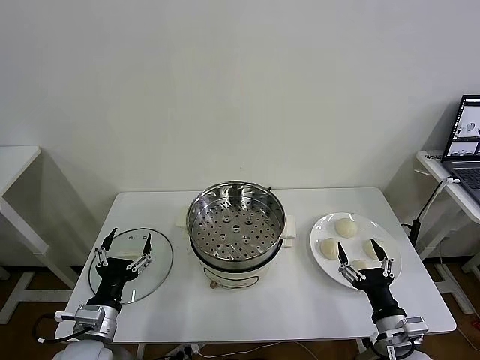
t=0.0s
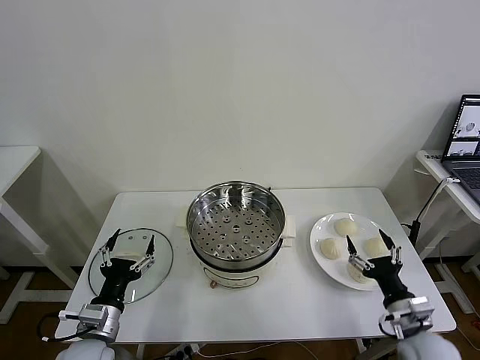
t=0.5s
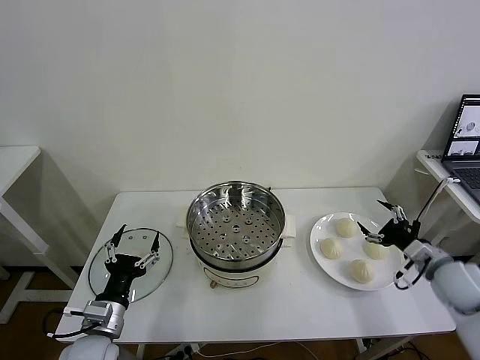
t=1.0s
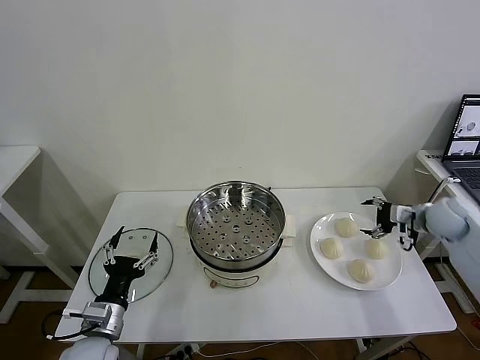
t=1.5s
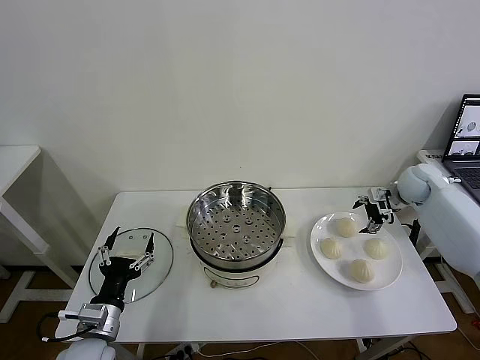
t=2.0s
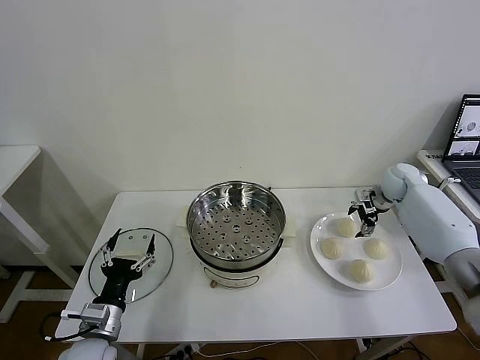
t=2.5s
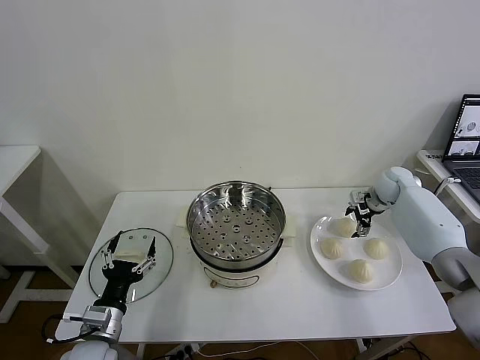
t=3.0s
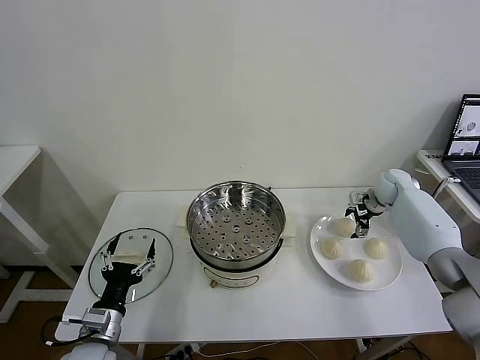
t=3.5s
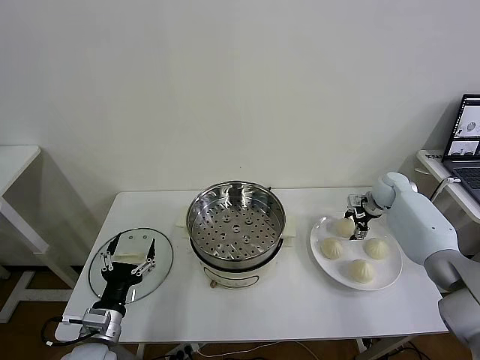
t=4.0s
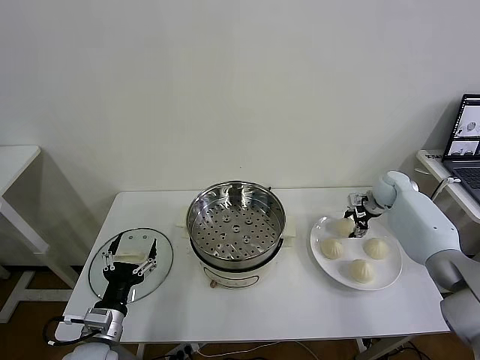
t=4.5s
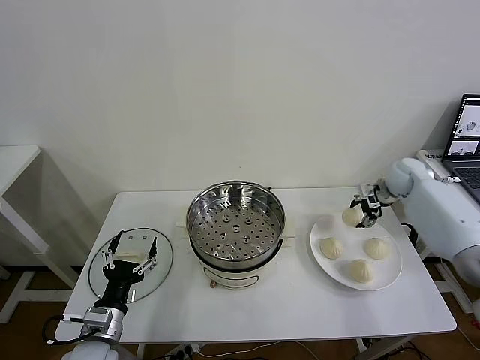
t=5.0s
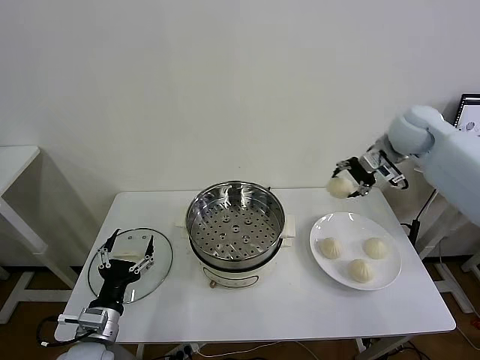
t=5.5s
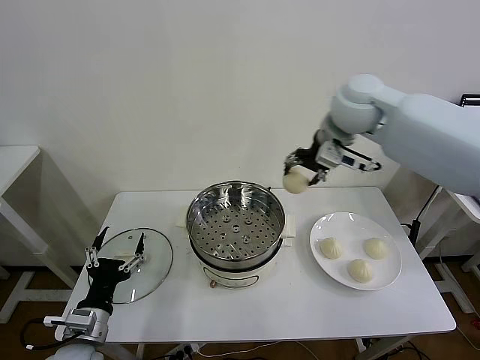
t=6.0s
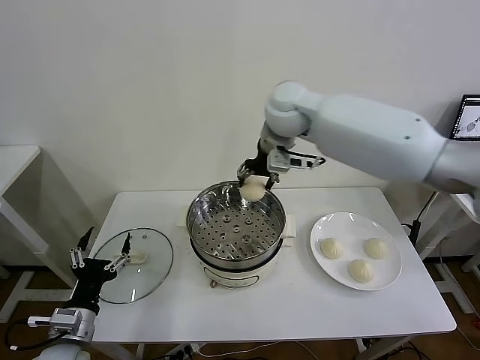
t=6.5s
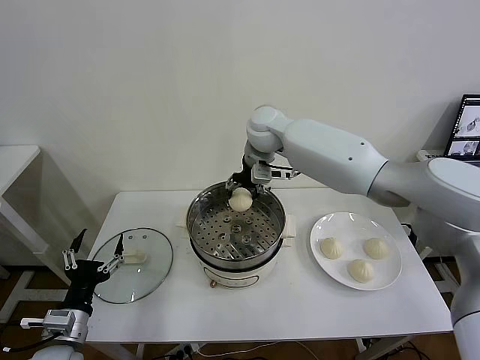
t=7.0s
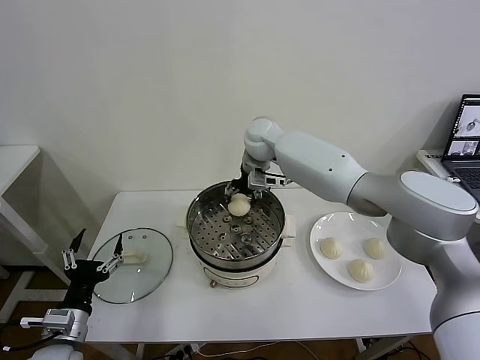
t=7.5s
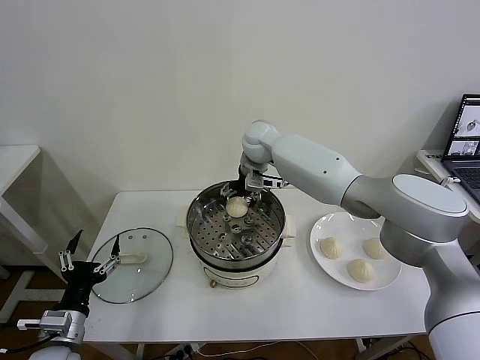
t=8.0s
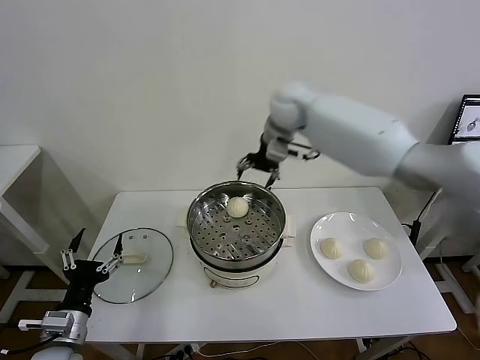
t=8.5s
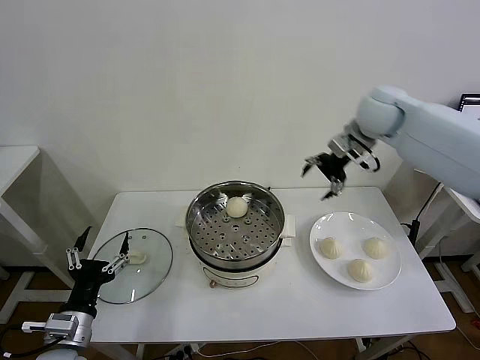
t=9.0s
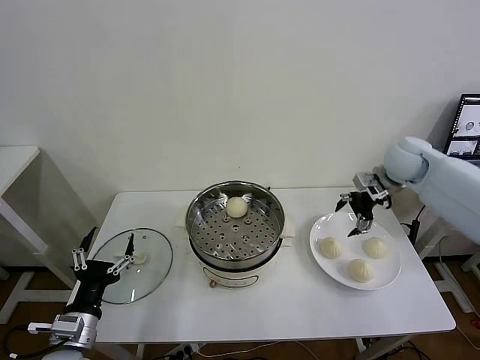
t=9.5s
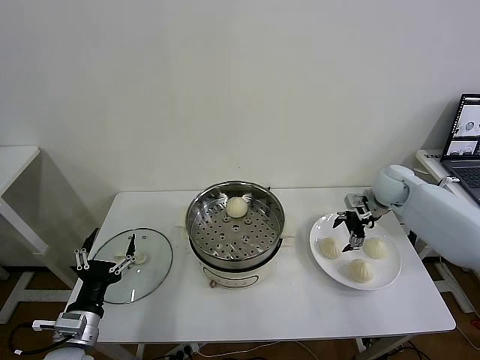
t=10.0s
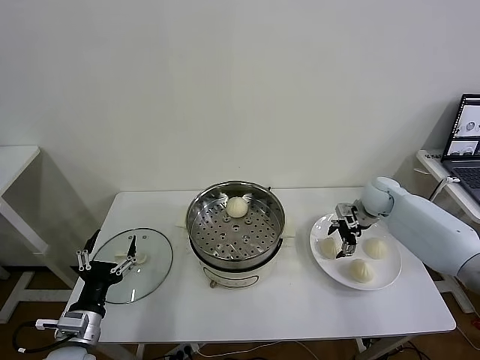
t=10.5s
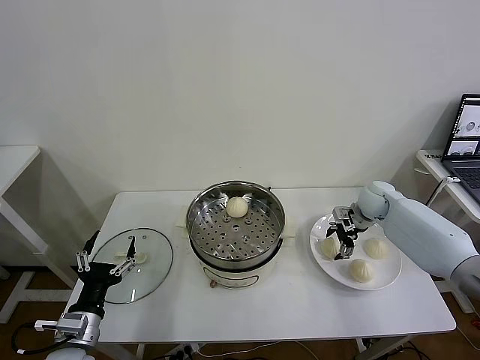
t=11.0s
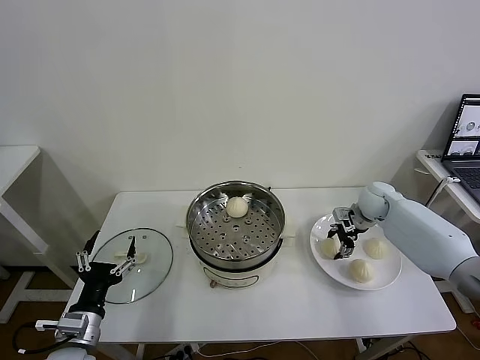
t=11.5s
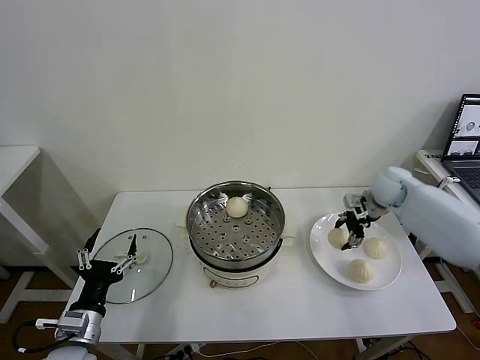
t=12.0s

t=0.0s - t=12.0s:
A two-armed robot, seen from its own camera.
Task of the whole recording: take steamed baozi put them in steamer then cover it.
Step, t=0.0s - t=4.0s: Grasp the baozi in the plate with right gripper.
Step, t=4.5s - t=7.5s: Place the baozi on the steamer with right gripper.
Step, t=8.5s - t=11.0s: Grasp the baozi in the plate with right gripper.
t=2.0s - t=4.0s: The right gripper heads downward, covering some 5 cm, and closes up.
t=4.0s - t=6.0s: The right gripper is displaced upward and to the left by roughly 40 cm.
t=6.0s - t=8.0s: The right gripper shifts roughly 20 cm downward, to the left and forward, and opens.
t=8.0s - t=10.0s: The right gripper travels to the right by about 30 cm.
t=10.0s - t=12.0s: The right gripper closes its fingers.

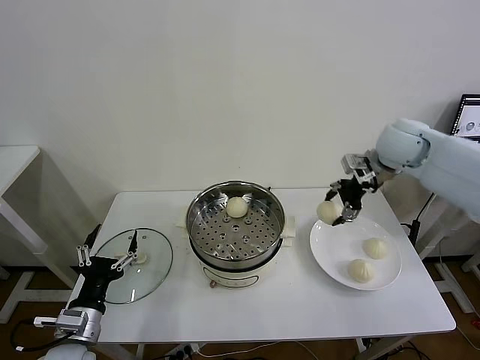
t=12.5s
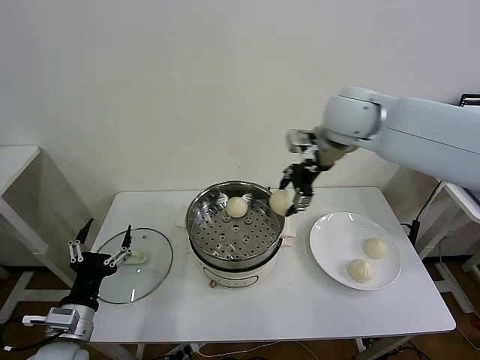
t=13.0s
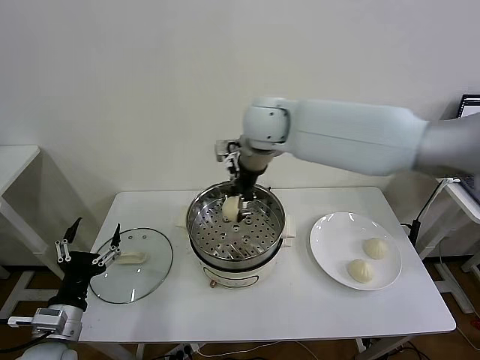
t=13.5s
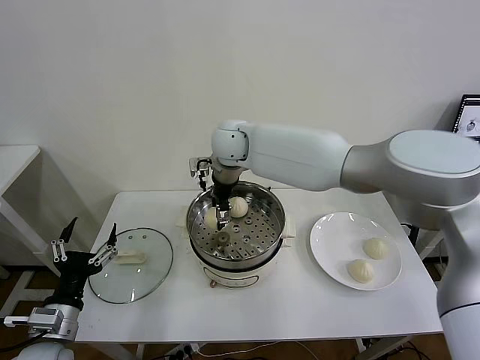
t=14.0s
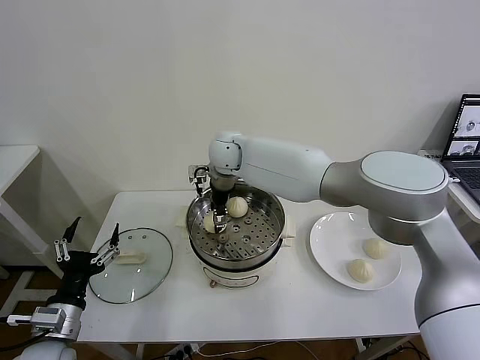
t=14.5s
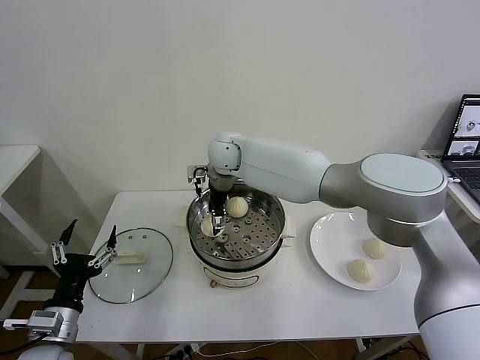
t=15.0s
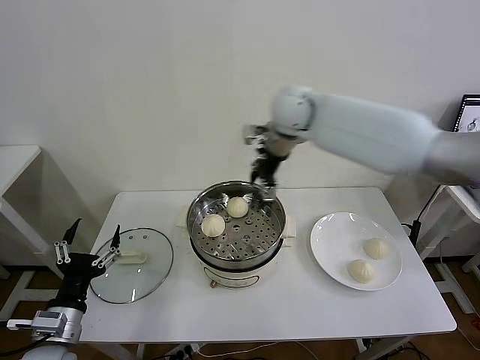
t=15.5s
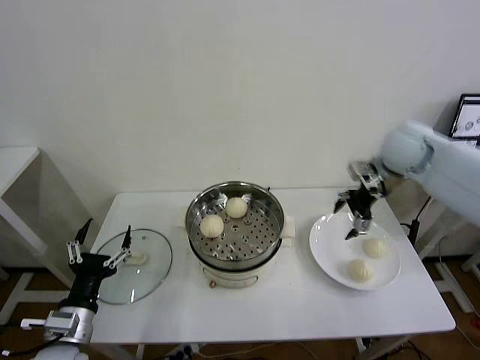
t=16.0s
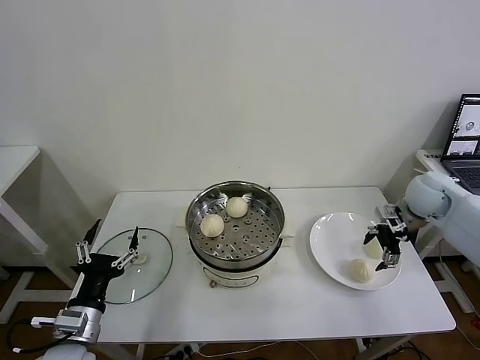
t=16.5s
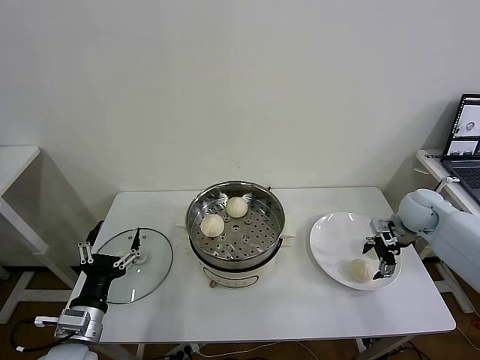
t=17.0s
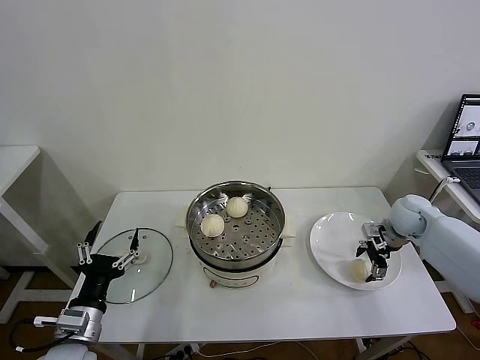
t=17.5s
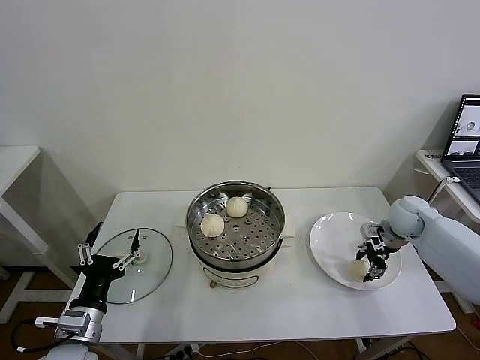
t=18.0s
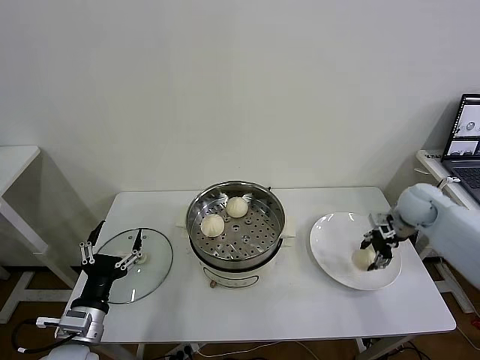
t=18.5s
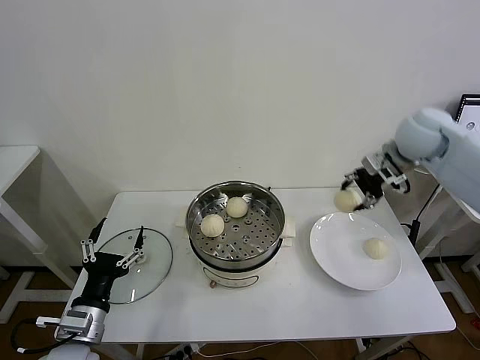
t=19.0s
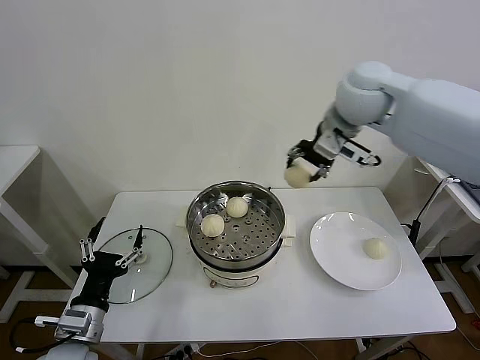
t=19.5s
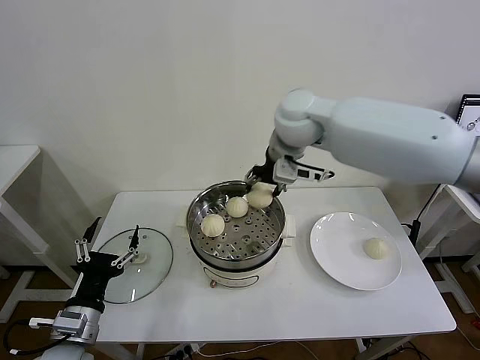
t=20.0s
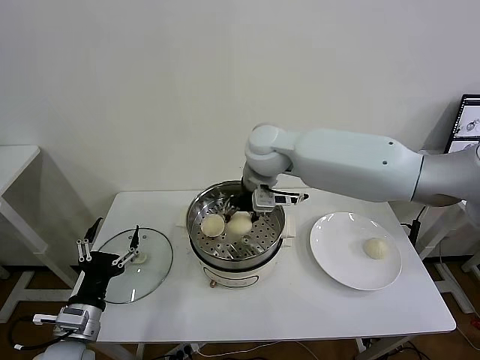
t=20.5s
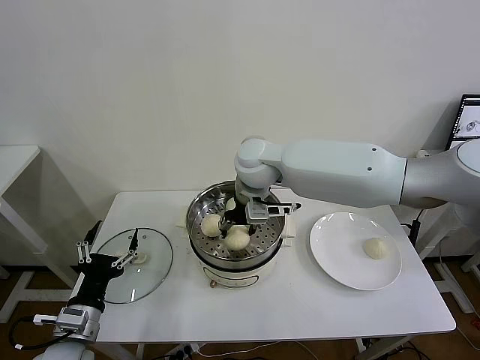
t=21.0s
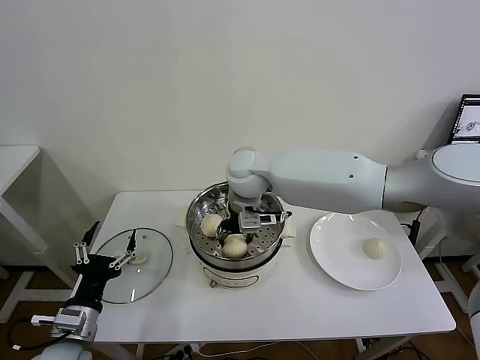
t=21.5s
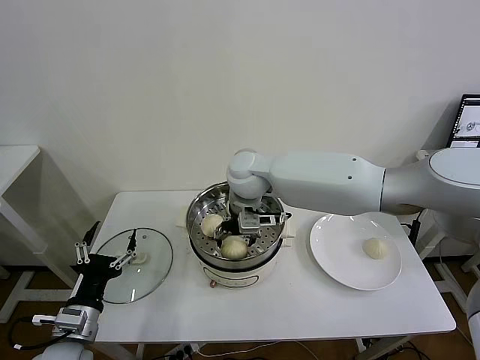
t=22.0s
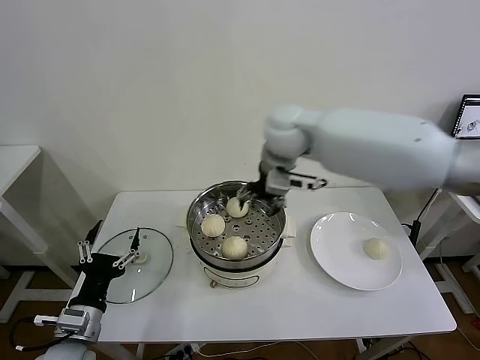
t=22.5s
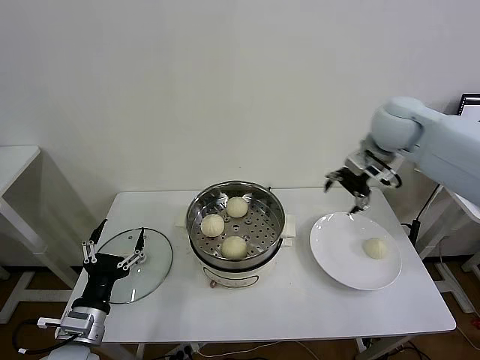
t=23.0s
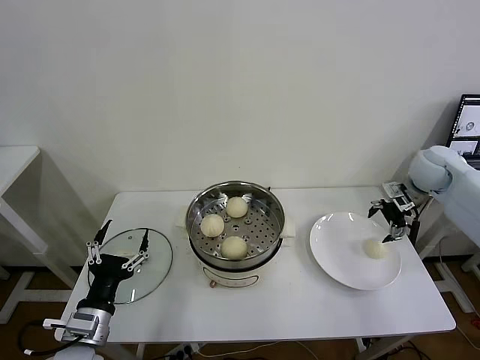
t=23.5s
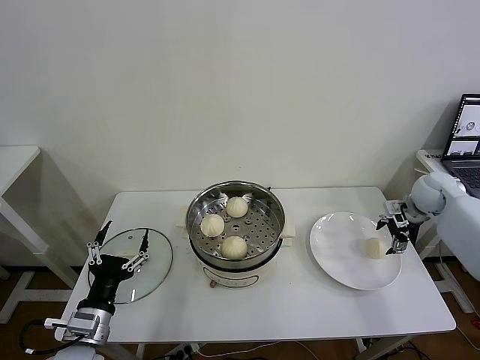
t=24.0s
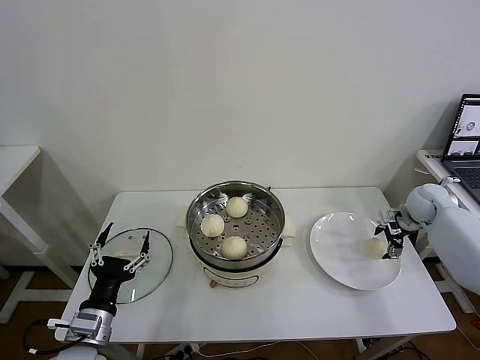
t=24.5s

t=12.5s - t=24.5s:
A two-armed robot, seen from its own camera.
Task of the whole recording: take steamed baozi put them in steamer then cover it.
Step, t=12.5s - t=15.0s: Place the baozi on the steamer with right gripper.
Step, t=15.5s - t=17.5s: Grasp the baozi in the plate with right gripper.
Step, t=18.0s - t=22.0s: Place the baozi on the steamer with right gripper.
t=12.5s - t=14.5s: The right gripper is displaced to the left by approximately 35 cm.
t=14.5s - t=16.5s: The right gripper heads to the right, covering approximately 50 cm, and opens up.
t=16.5s - t=18.5s: The right gripper travels downward and back again, about 10 cm each way, and closes.
t=18.5s - t=20.5s: The right gripper travels to the left by approximately 40 cm.
t=20.5s - t=22.5s: The right gripper is displaced to the right by approximately 5 cm, and opens.
t=22.5s - t=24.5s: The right gripper heads to the right and downward, covering about 40 cm.

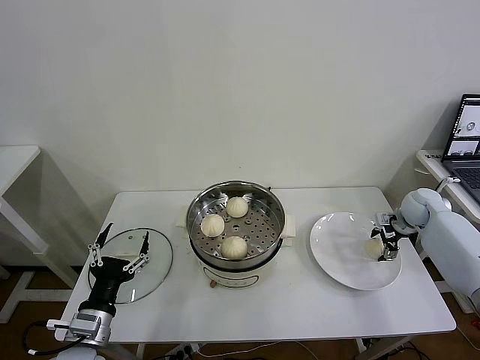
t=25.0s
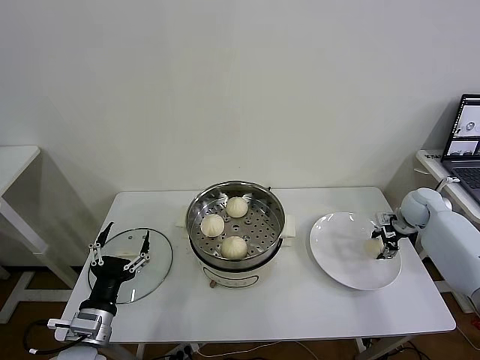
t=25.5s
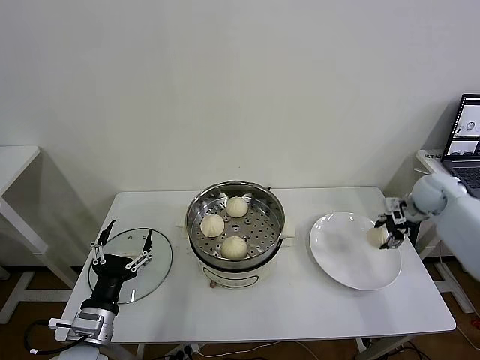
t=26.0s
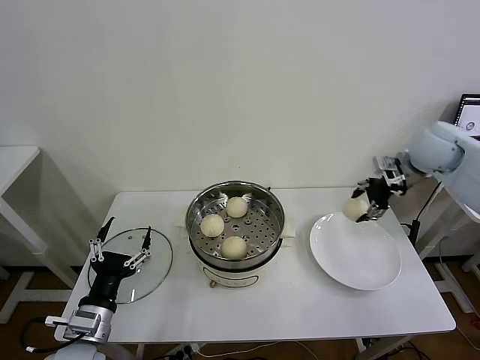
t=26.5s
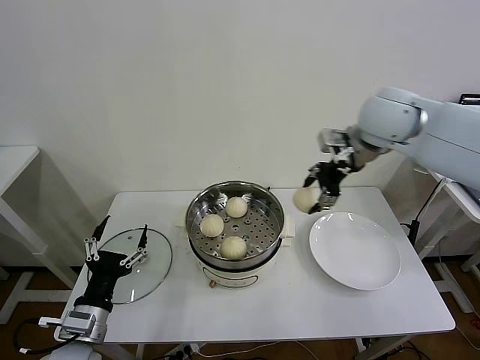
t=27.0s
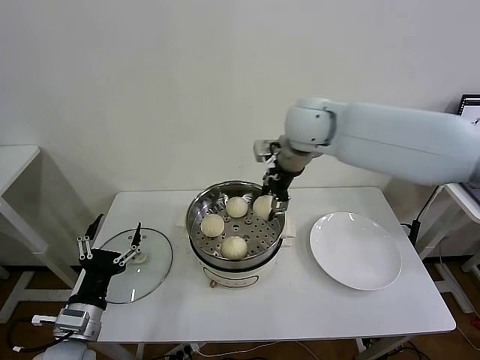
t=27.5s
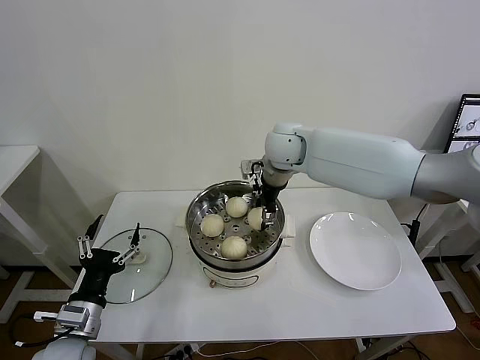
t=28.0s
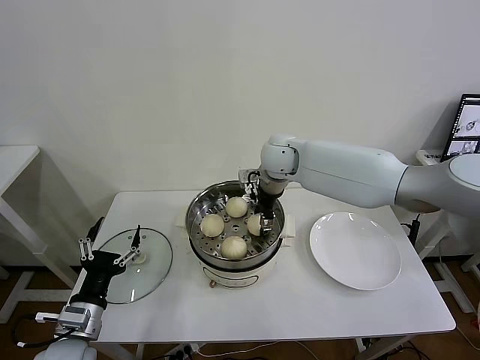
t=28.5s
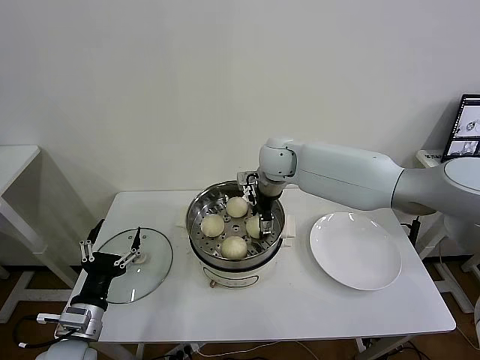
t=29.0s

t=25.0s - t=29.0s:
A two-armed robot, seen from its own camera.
Task of the whole recording: take steamed baozi put them in steamer then cover it.
t=25.0s - t=27.0s: The right gripper is displaced upward and to the left by some 35 cm, and closes.
t=27.0s - t=29.0s: The right gripper moves to the left, downward and forward, roughly 20 cm, and opens up.
